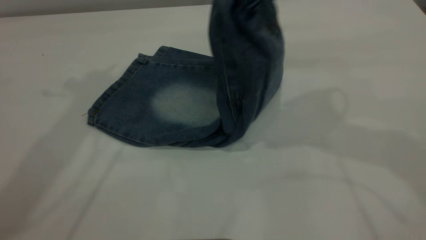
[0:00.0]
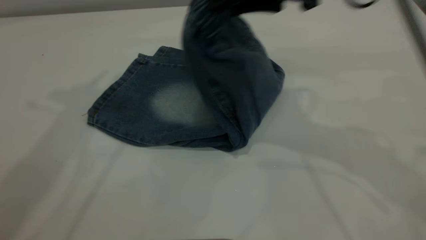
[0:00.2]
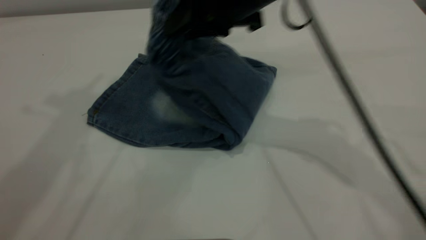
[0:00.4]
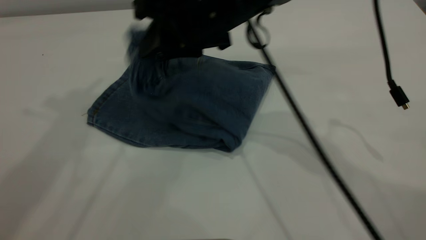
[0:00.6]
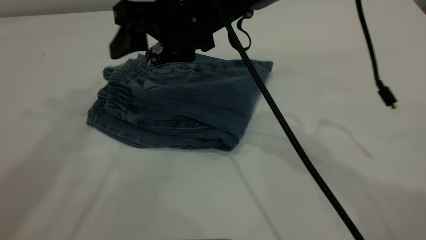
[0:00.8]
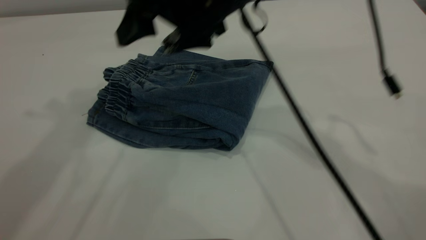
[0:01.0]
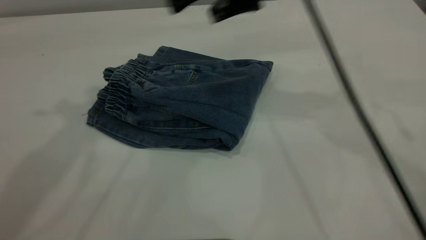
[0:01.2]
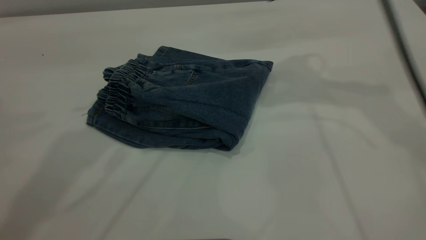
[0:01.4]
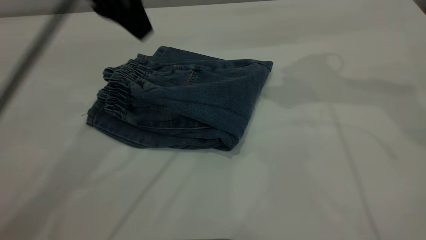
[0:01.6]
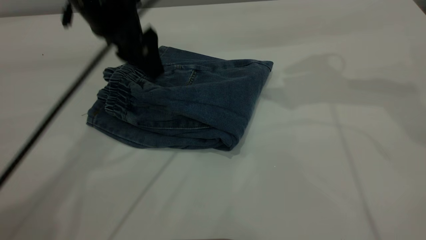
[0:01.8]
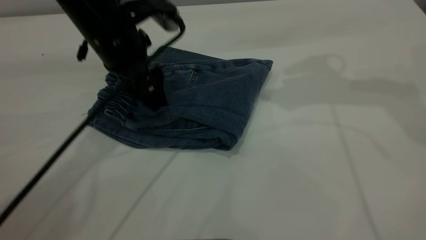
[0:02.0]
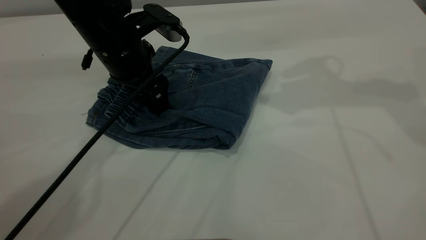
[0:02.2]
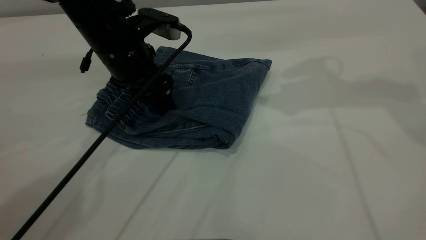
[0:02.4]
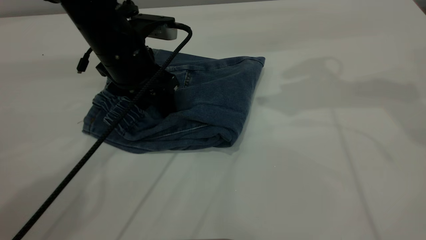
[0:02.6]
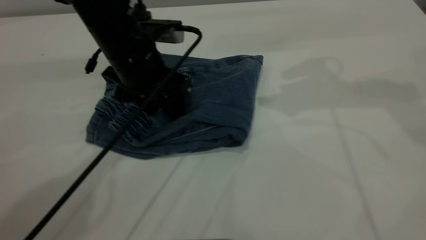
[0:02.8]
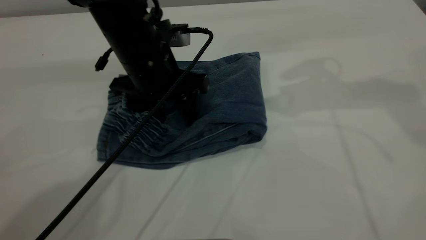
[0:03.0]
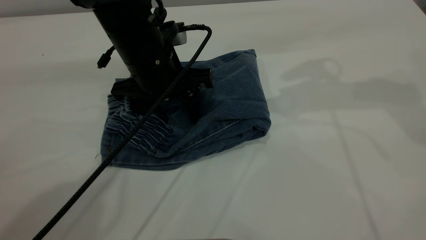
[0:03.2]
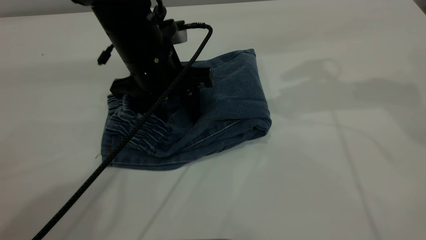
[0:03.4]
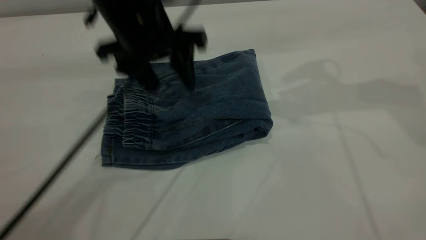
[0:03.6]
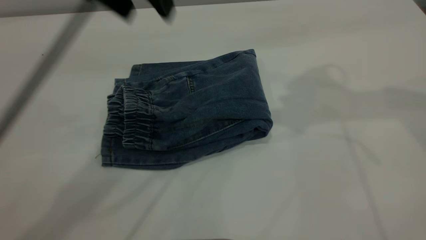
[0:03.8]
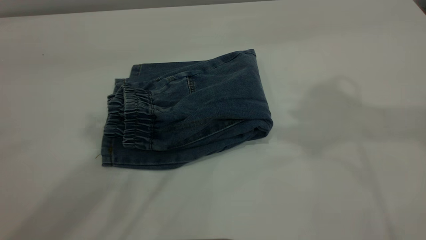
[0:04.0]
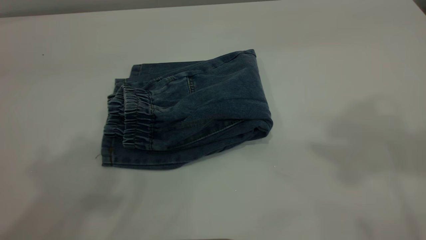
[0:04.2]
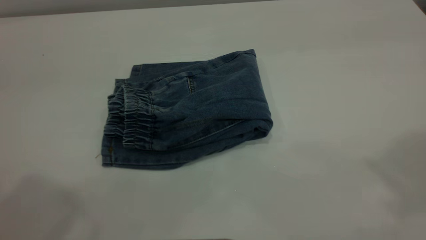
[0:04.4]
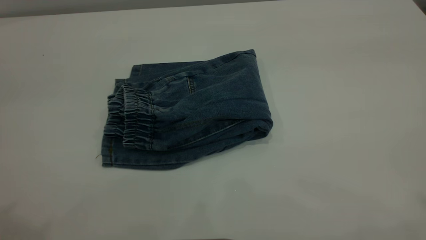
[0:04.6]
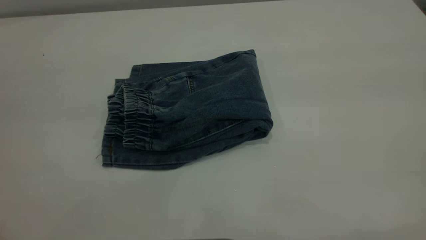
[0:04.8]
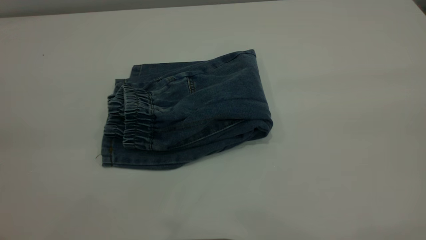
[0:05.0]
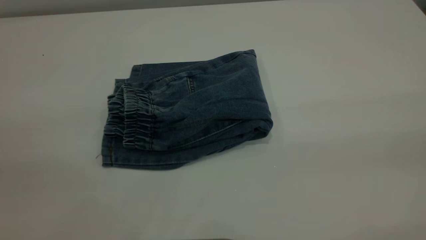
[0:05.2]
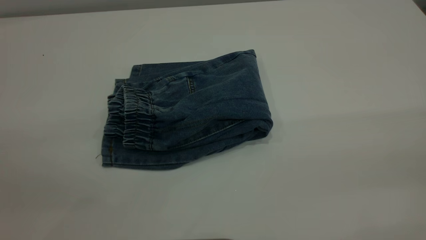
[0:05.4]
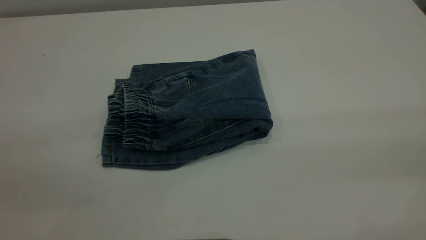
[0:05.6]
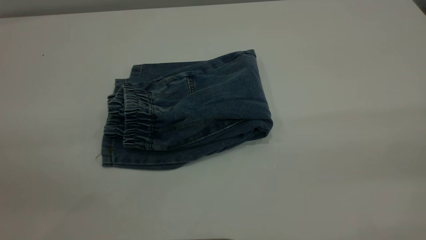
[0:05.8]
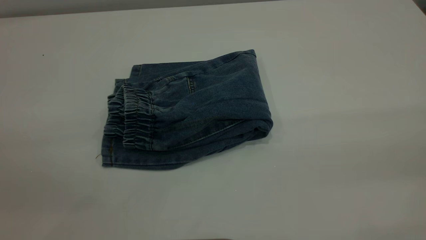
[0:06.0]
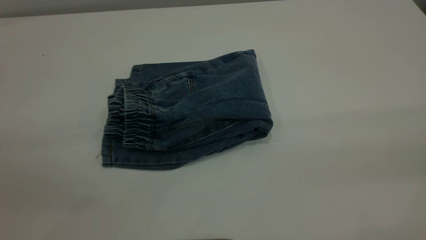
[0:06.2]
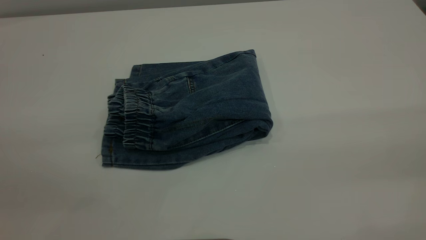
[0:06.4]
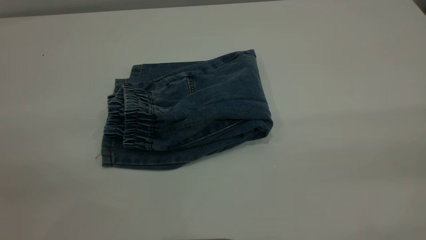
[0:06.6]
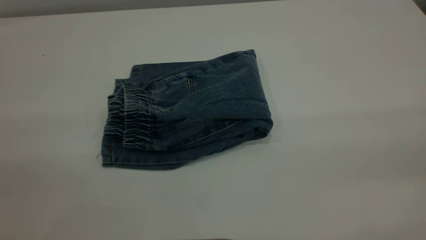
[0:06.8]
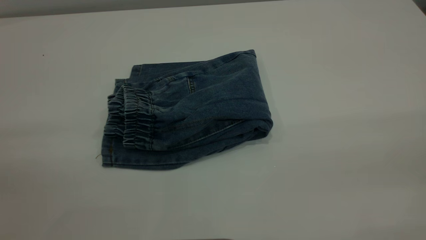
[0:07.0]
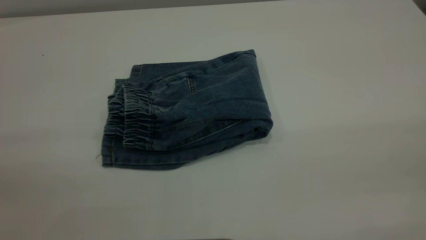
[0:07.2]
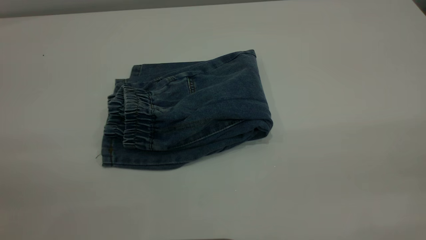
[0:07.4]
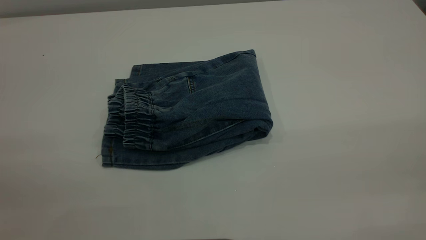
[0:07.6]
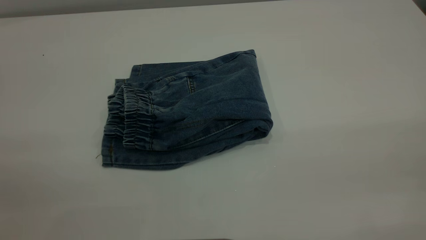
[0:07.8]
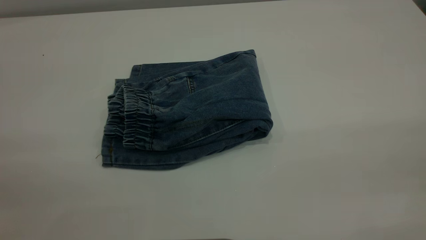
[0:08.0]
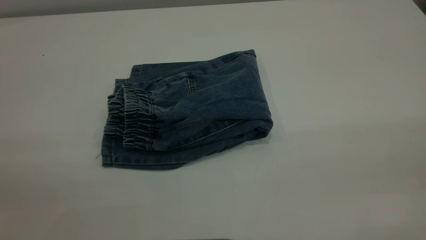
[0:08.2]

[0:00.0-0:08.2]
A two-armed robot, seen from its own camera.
0:00.0 to 0:01.6: The left gripper is displaced downward and to the right by about 20 cm, and opens its fingers, while the right gripper is displaced forward by approximately 10 cm, moves roughly 15 cm to the left and comes back, and opens its fingers.
0:01.6 to 0:03.2: The left gripper travels downward and to the right by about 15 cm.
0:03.2 to 0:05.0: The right gripper moves backward, some 35 cm. Meanwhile the left gripper heads backward, upward and to the left, covering some 40 cm.
